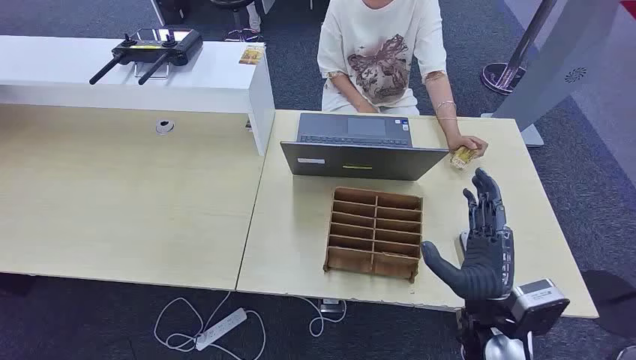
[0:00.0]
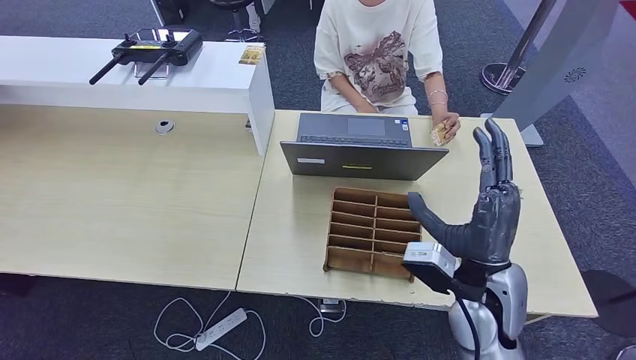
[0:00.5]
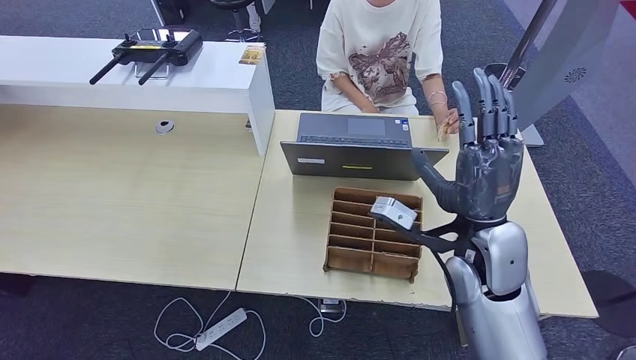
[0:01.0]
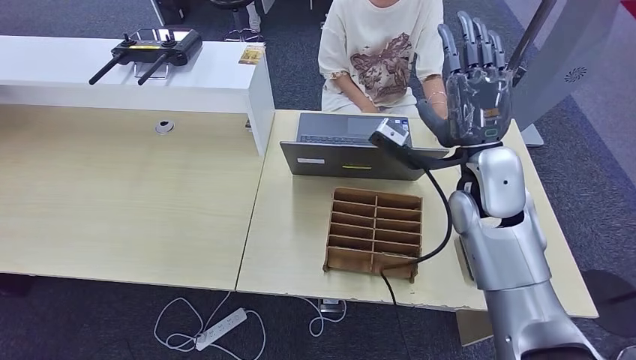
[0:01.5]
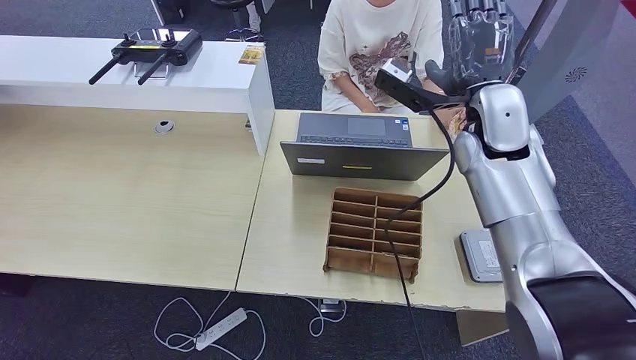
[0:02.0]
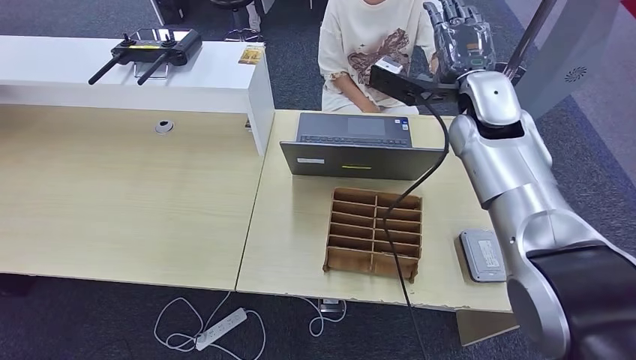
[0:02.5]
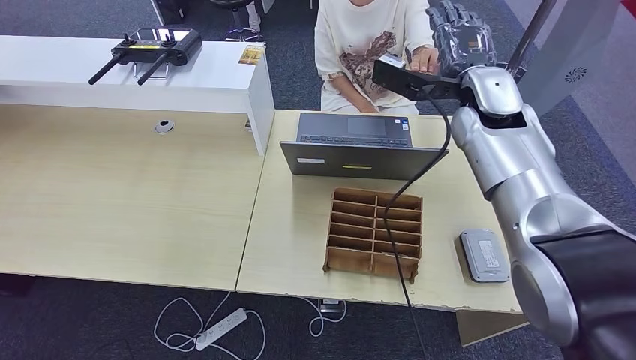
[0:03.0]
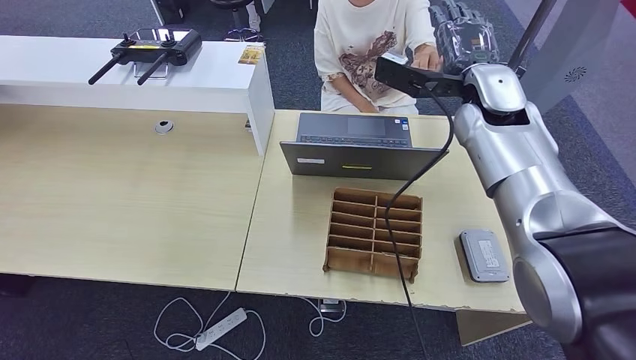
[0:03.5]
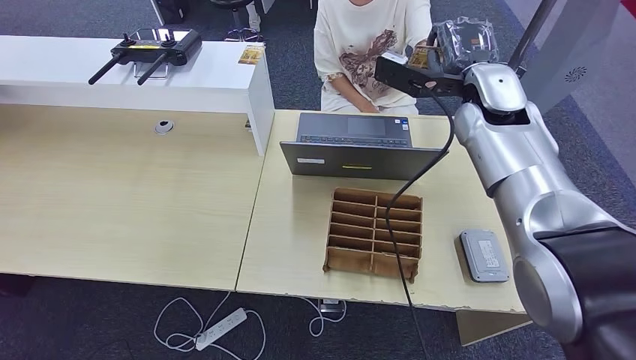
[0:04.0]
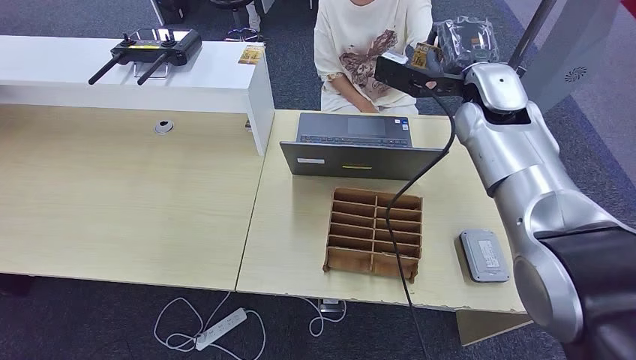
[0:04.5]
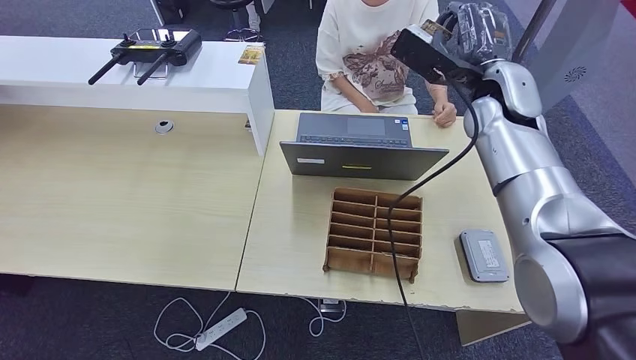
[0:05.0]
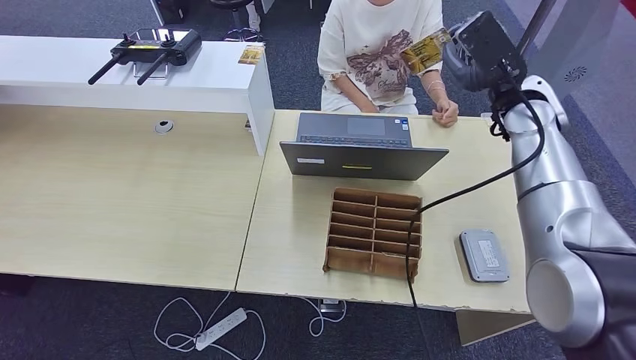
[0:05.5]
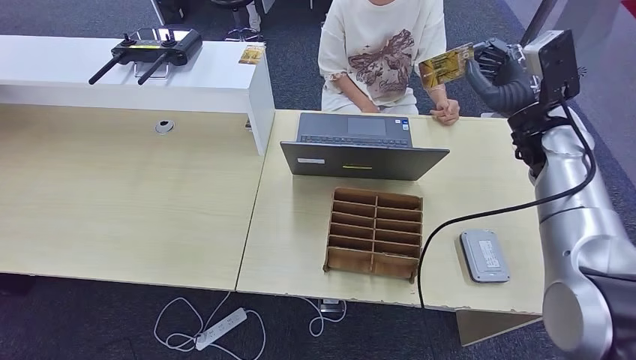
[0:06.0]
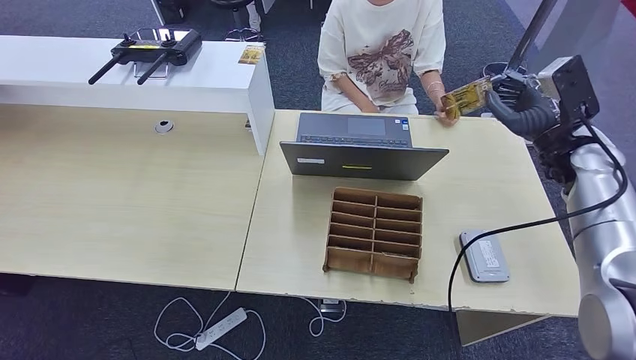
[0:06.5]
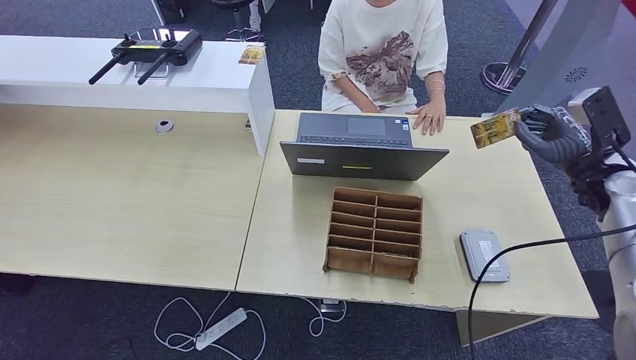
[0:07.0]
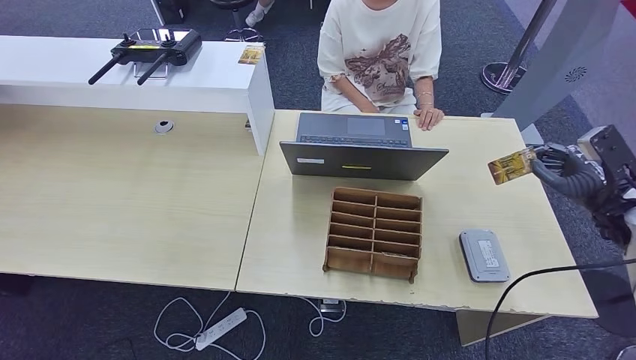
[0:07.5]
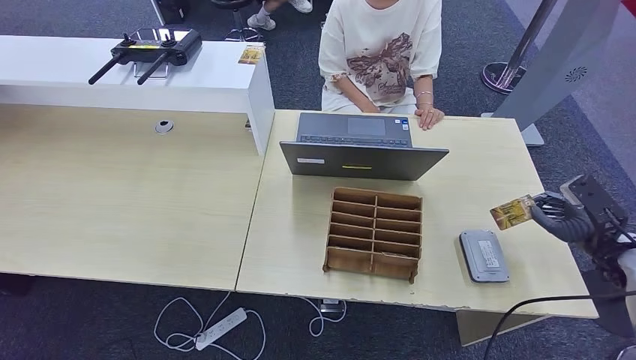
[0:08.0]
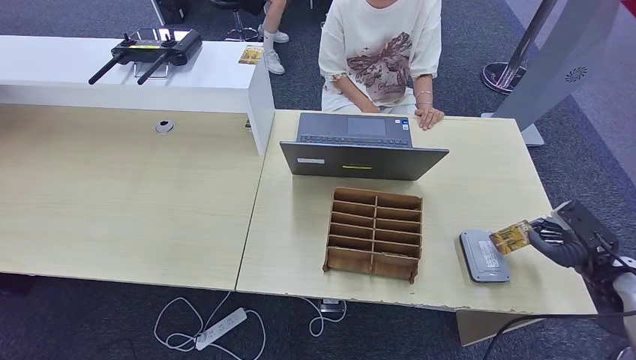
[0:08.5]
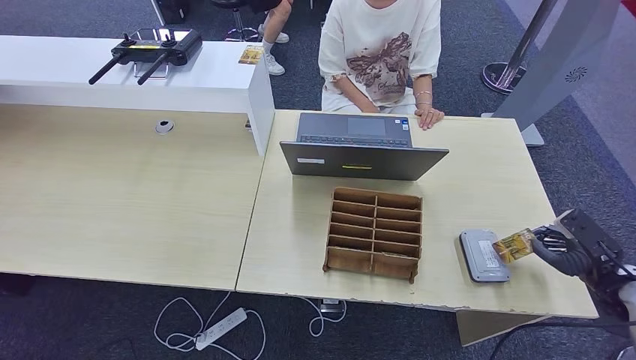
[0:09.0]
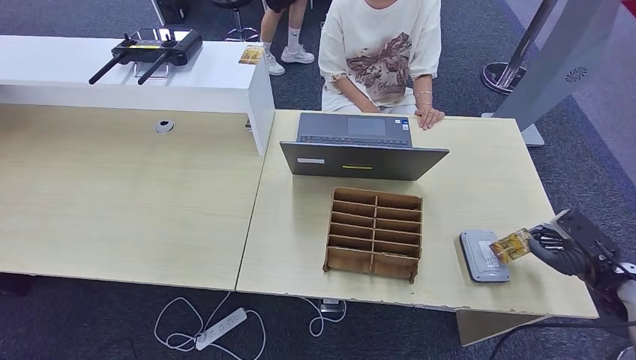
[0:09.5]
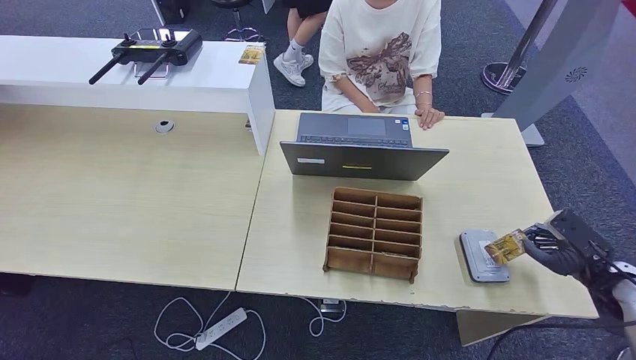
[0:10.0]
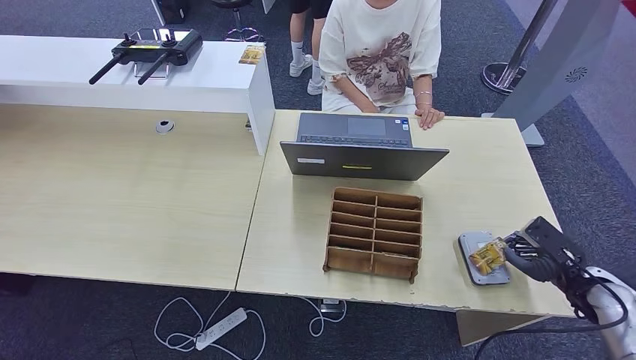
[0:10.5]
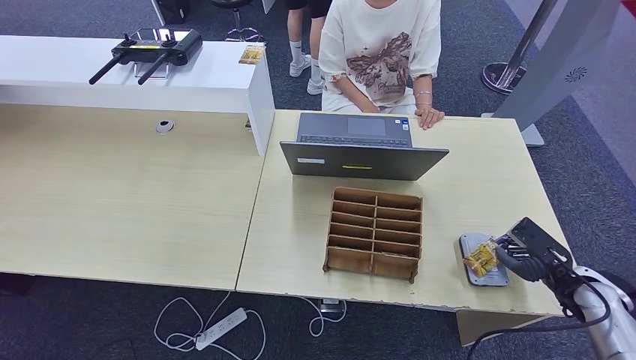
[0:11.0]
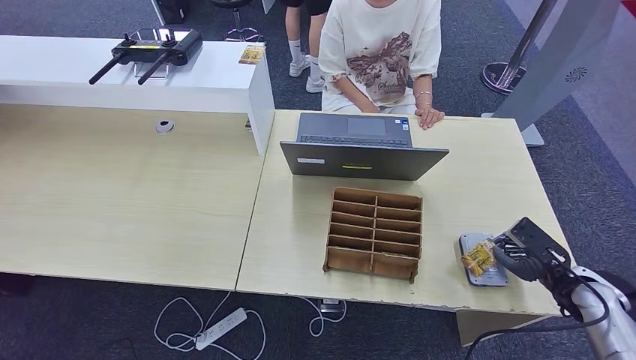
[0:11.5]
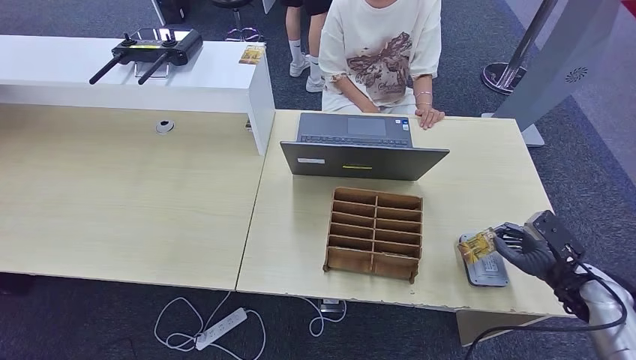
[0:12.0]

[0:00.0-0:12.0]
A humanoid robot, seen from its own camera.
Step, 0:00.0 to 0:04.5: Take the ID card from the person's hand.
Step, 0:05.0 to 0:10.0: Place the ID card on the card reader.
0:04.0 to 0:06.0: The right hand shifts about 10 cm to the right.
0:06.0 to 0:08.0: The right hand goes some 25 cm to the right, downward and backward.
0:08.0 to 0:10.0: The hands make only small movements.
0:10.0 to 0:12.0: The right hand ends up approximately 5 cm from where it was.

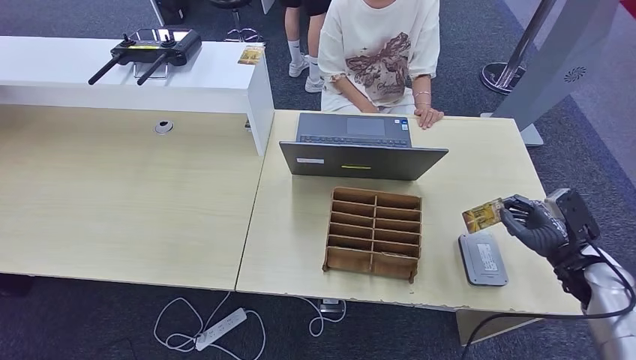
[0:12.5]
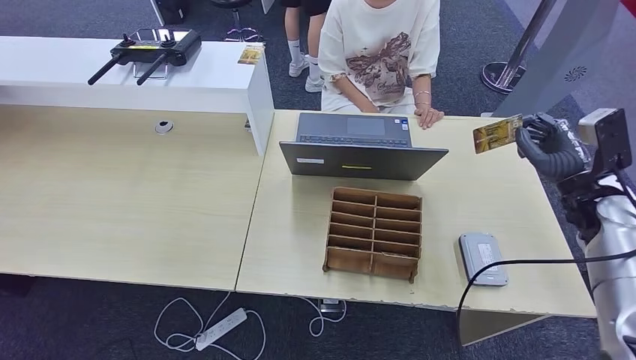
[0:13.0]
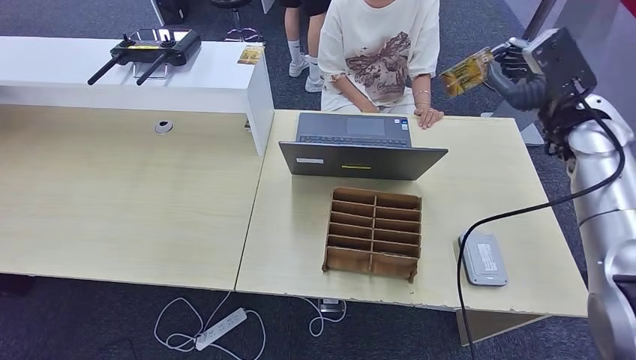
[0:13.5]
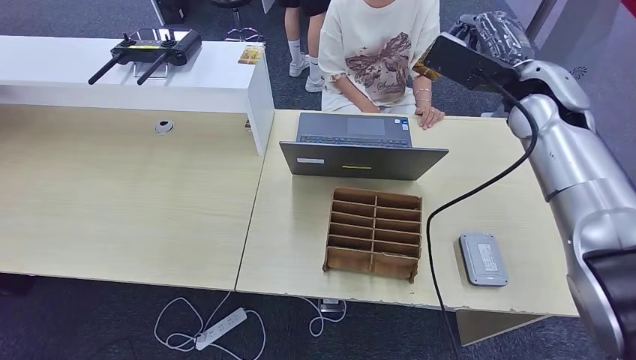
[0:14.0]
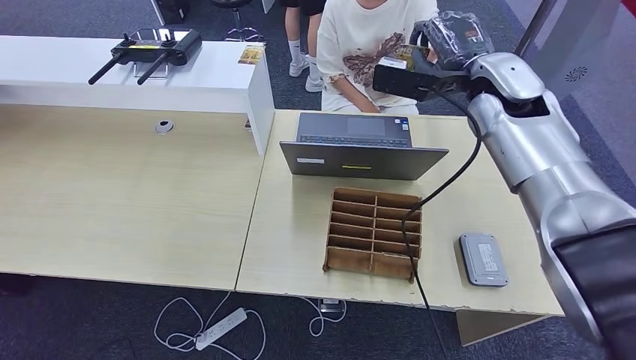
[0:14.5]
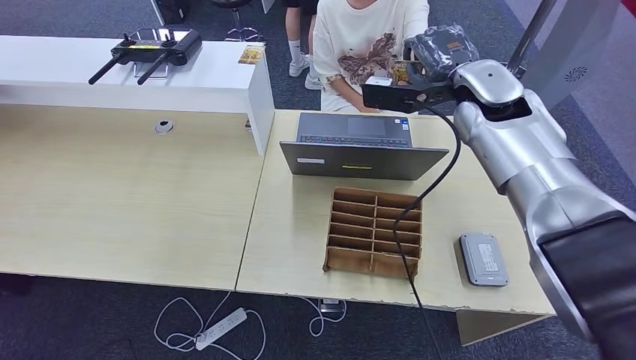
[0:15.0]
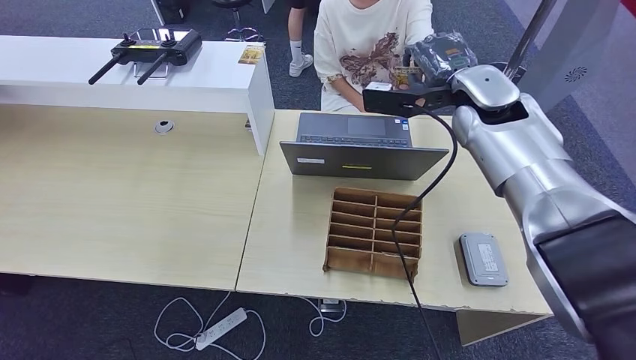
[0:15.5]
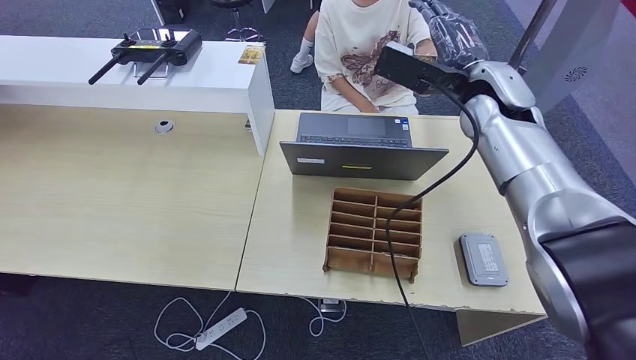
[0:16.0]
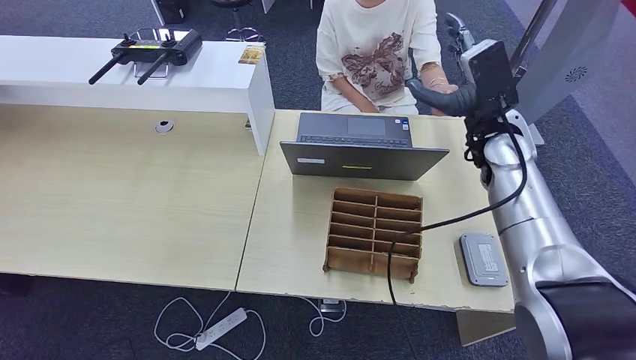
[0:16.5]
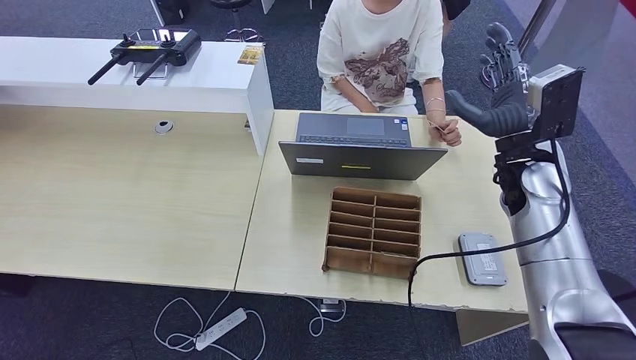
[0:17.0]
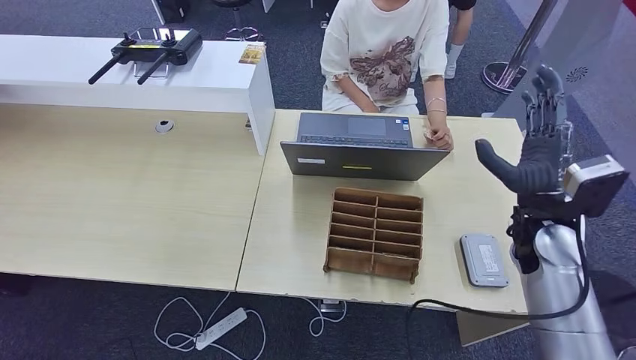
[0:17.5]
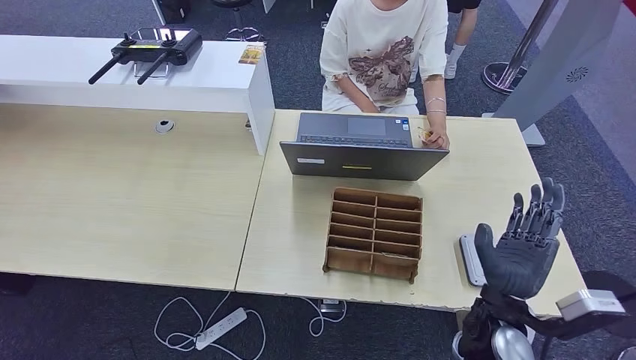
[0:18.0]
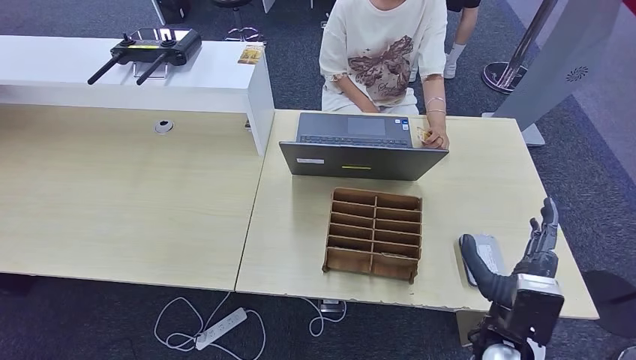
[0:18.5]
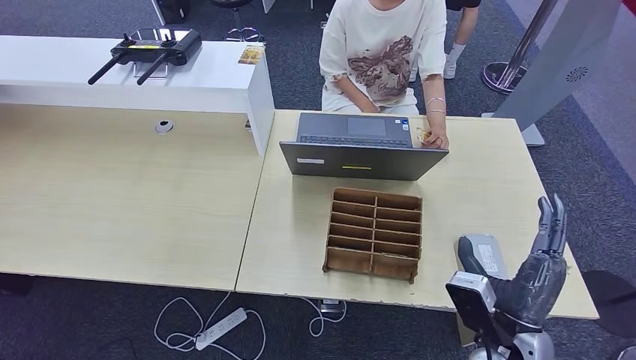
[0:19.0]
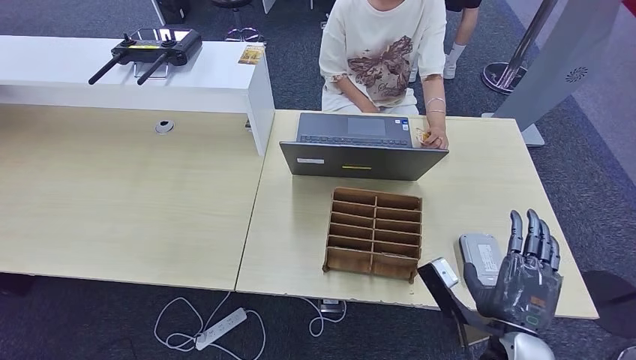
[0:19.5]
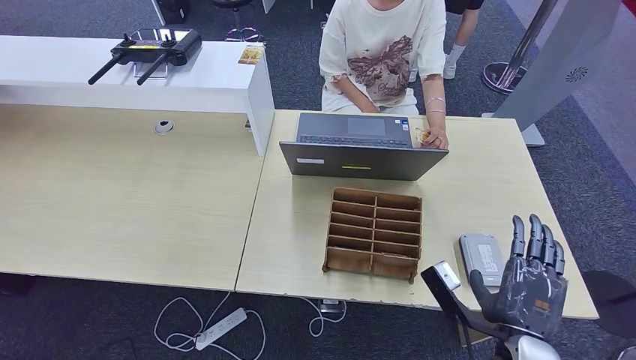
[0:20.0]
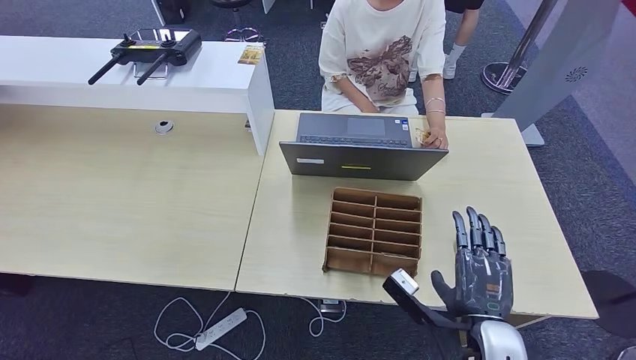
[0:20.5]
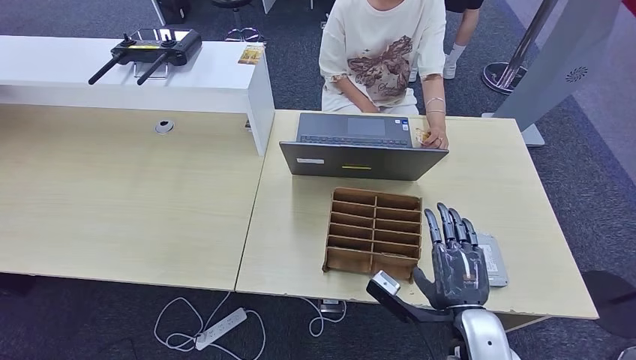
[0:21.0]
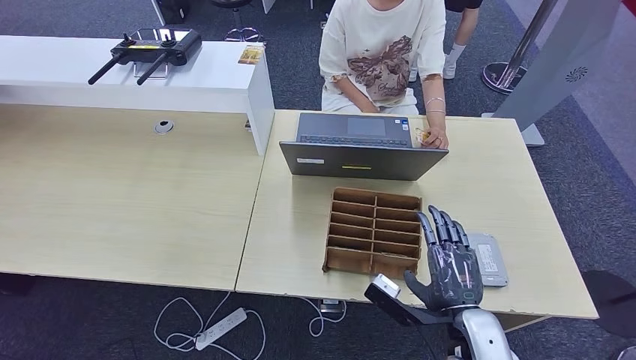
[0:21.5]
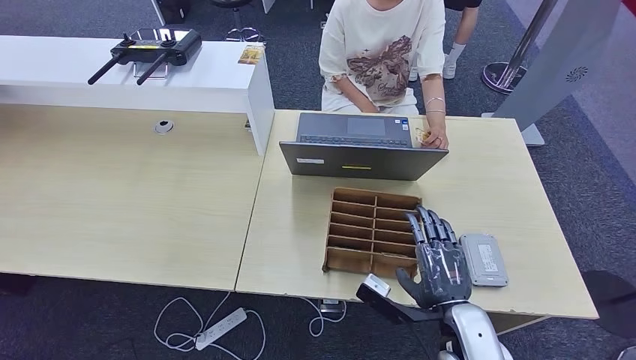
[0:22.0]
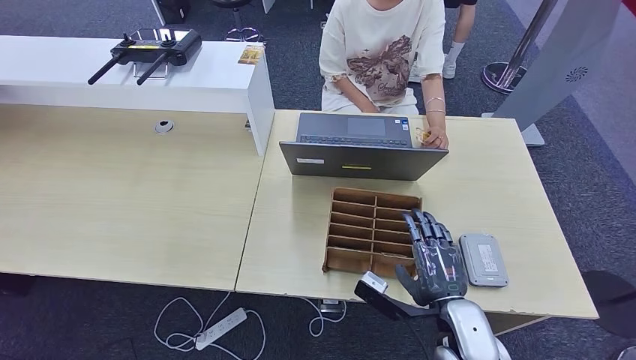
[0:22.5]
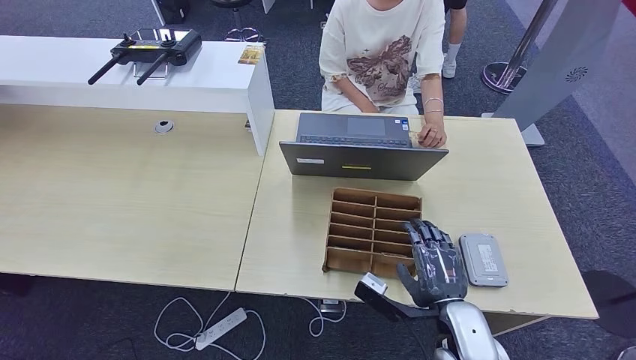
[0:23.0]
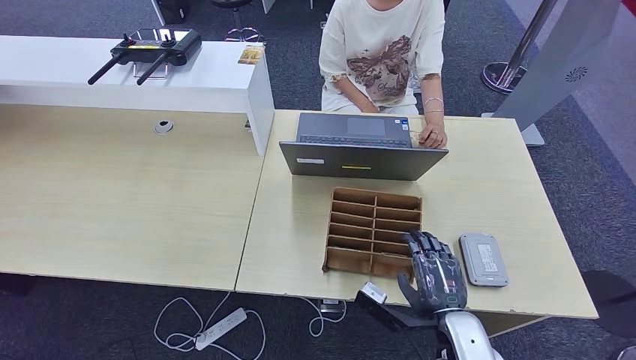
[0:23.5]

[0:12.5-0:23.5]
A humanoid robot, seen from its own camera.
Step, 0:12.5 to 0:16.0: Hand the ID card to the person.
0:12.5 to 0:14.5: The right hand travels upward, to the left and forward by approximately 40 cm.
0:14.5 to 0:16.0: The hands stay close to where they were, moving slightly.
0:16.0 to 0:18.0: The right hand heads backward and downward, covering about 35 cm.
0:18.0 to 0:20.0: The right hand shifts roughly 5 cm backward.
0:20.0 to 0:21.5: The right hand shifts by about 5 cm.
0:21.5 to 0:23.5: The hands make only small movements.
